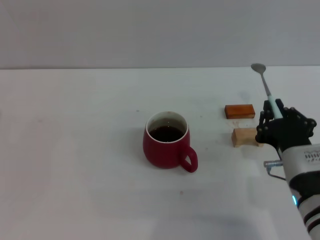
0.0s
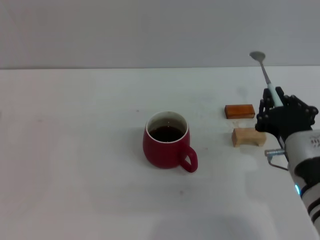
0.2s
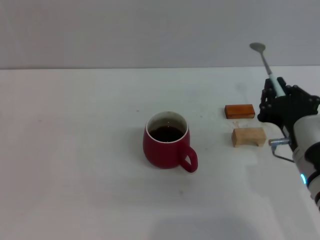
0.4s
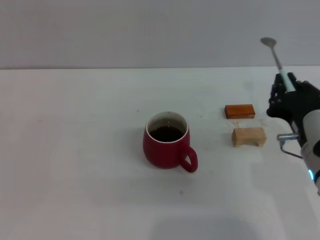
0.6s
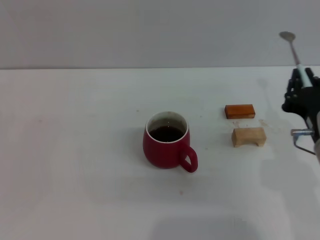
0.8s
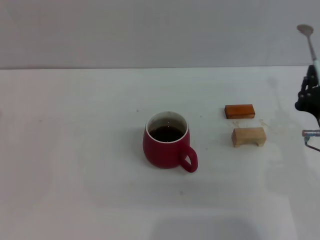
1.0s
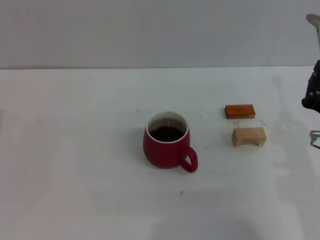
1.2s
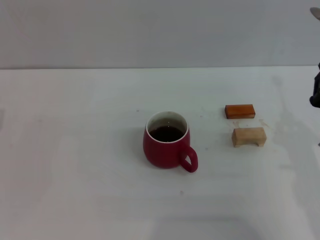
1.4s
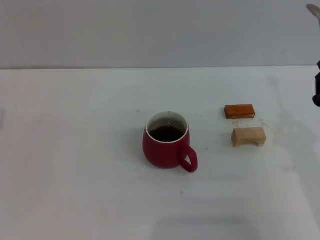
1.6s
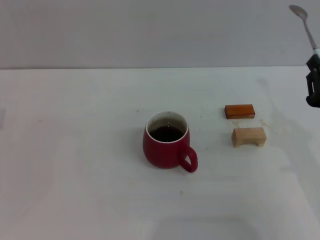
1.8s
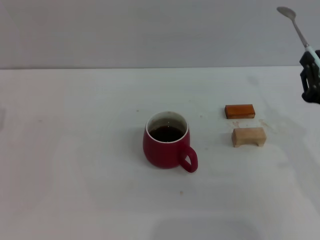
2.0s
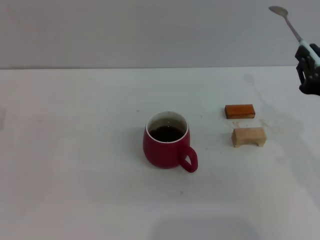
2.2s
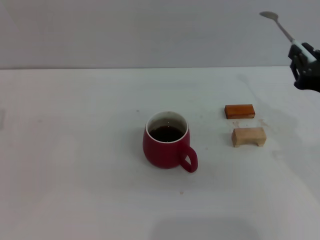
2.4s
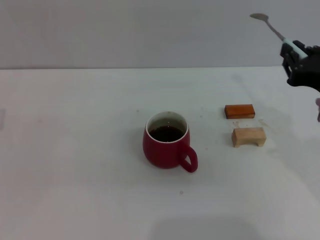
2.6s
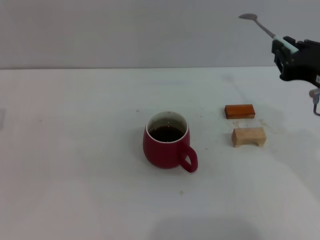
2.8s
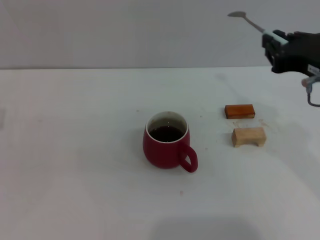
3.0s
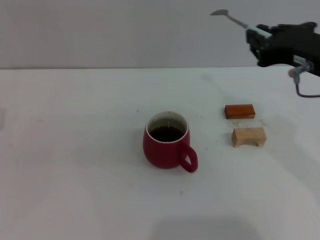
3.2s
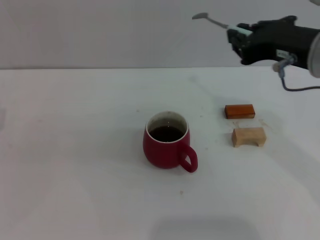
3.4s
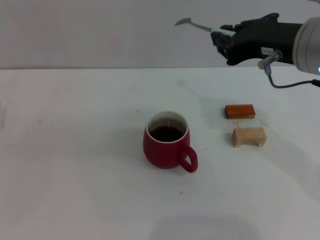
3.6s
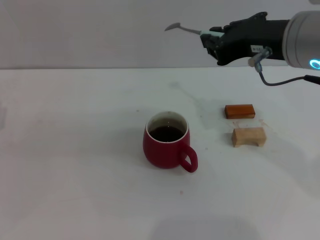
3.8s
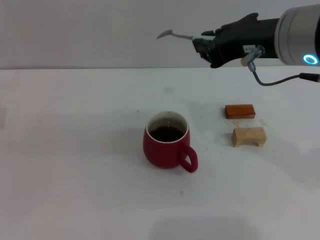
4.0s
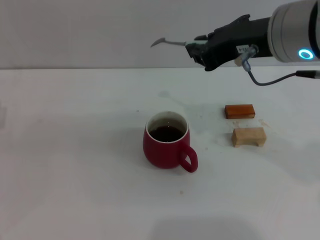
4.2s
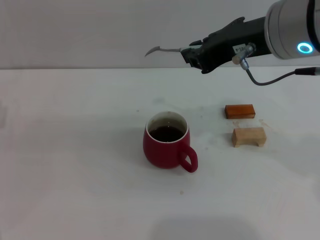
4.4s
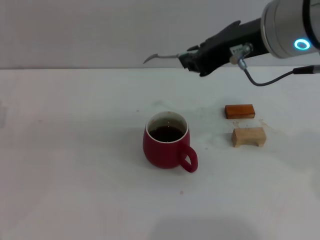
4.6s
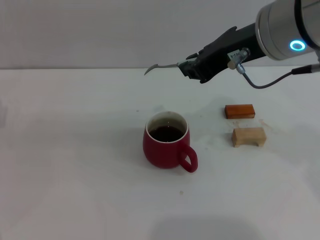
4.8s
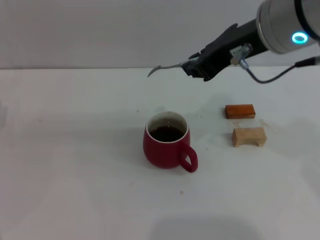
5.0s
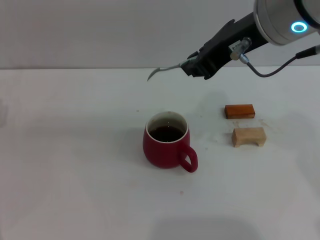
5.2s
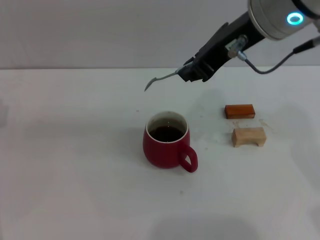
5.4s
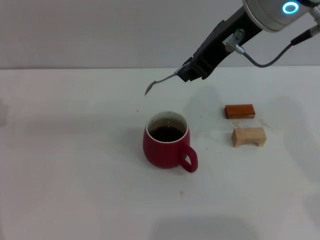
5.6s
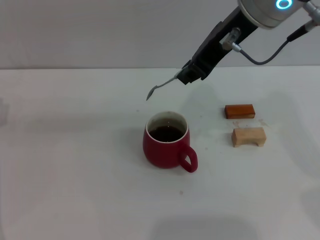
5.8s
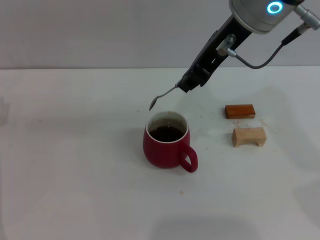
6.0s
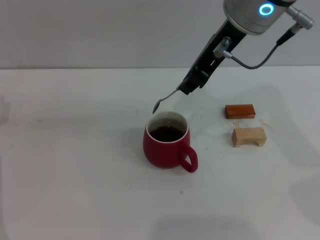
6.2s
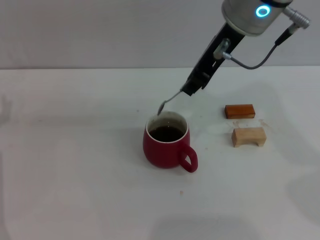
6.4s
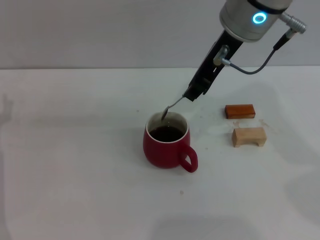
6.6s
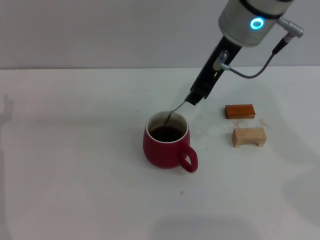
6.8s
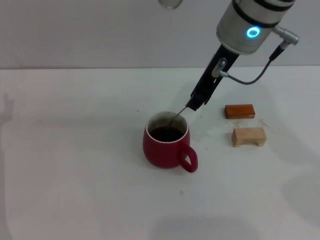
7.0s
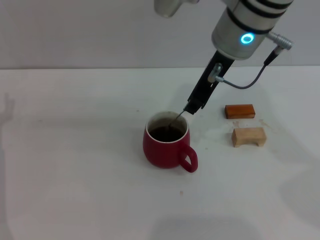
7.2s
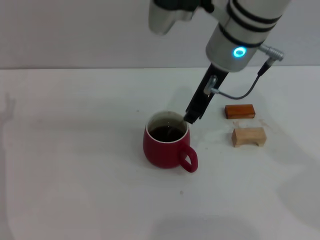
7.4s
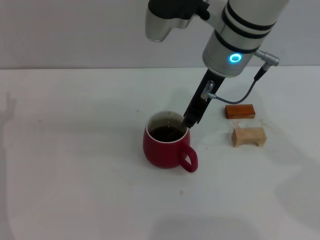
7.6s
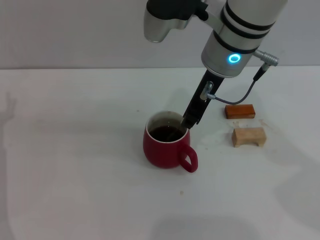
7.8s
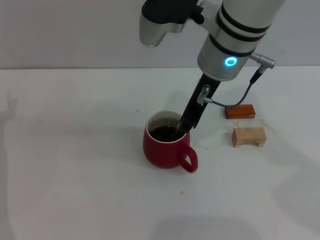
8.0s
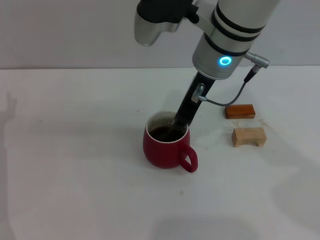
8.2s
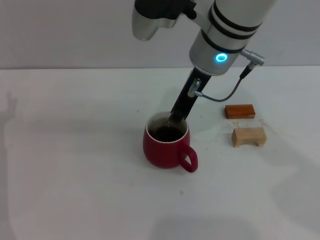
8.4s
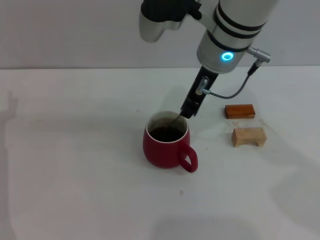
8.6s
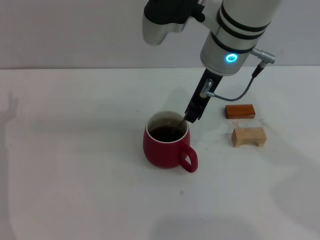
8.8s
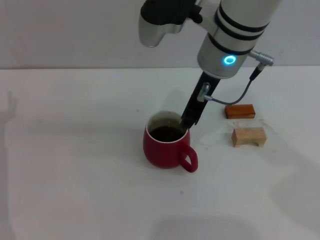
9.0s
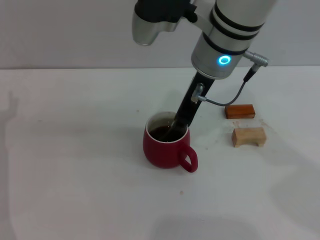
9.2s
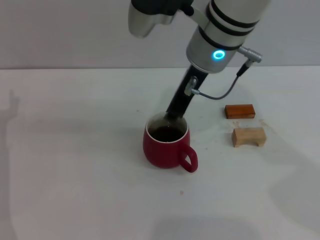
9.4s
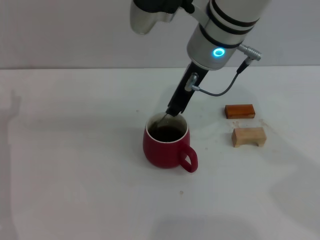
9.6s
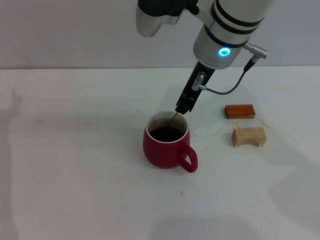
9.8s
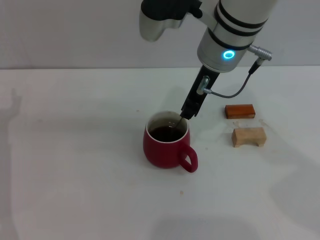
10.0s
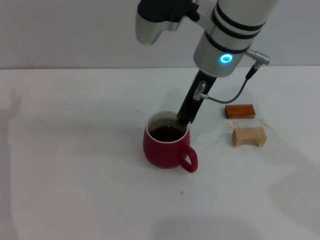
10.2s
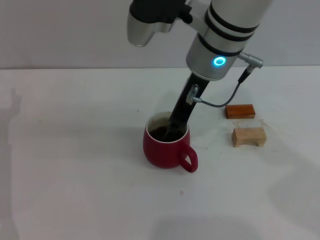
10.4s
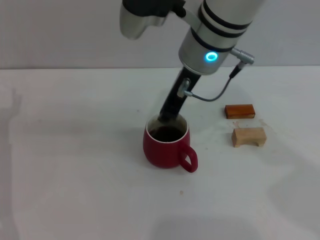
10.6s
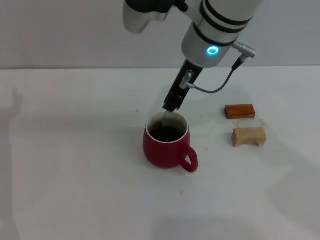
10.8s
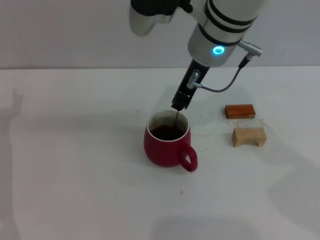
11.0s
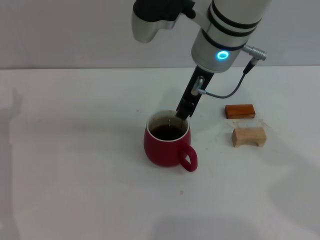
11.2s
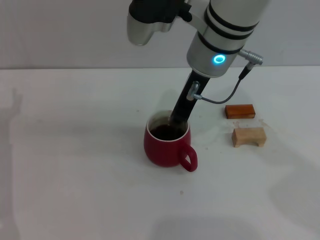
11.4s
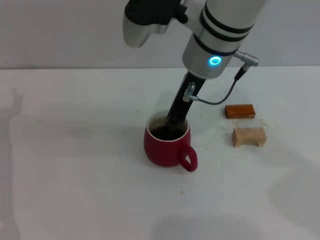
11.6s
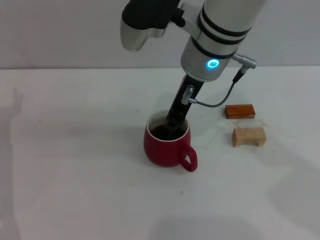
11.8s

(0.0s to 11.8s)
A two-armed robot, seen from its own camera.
Task of the whole recording: Move the red cup to the center, lift the blue spoon, stir it three times in the cup, and put the spoon into the cup.
0.0s - 1.4s: The right gripper shifts about 5 cm to the right.
1.4s - 3.0s: The right gripper shifts about 15 cm upward and forward.
3.0s - 4.4s: The right gripper goes some 10 cm to the left and upward.
4.4s - 6.0s: The right gripper goes about 5 cm forward.
6.0s - 7.4s: The right gripper moves downward, roughly 5 cm.
7.4s - 11.8s: There are only small adjustments of the grippers.

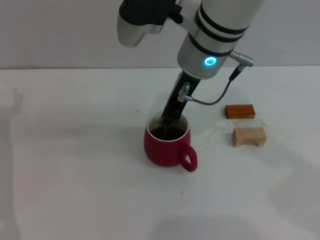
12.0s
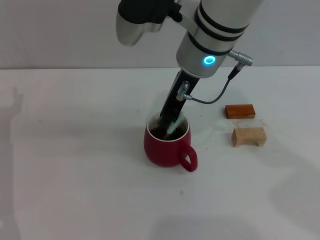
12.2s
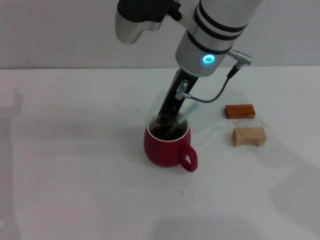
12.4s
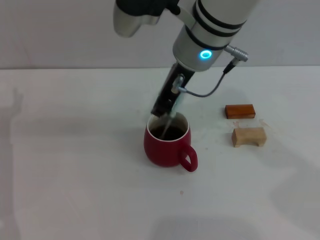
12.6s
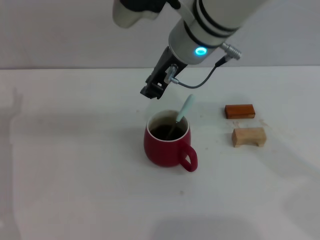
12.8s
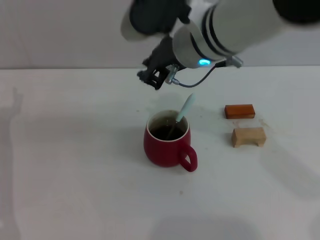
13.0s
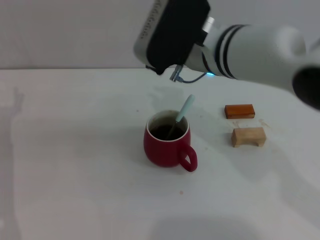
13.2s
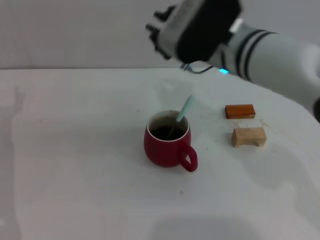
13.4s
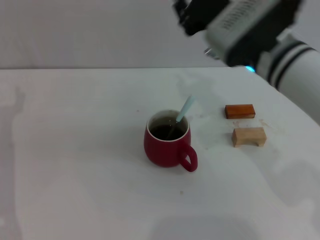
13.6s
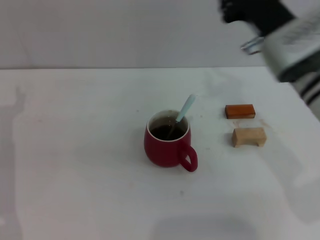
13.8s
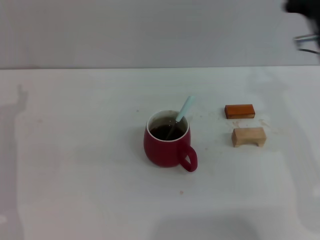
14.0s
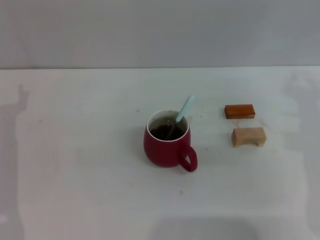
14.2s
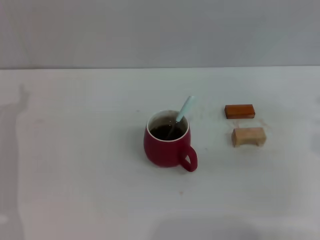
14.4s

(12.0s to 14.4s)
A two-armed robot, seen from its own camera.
Task of the whole recording: Move the red cup to the center, lift the blue spoon, stir it three times in the cup, and put the spoon into the cup.
13.2s - 14.4s: The right gripper shifts approximately 25 cm to the right.
